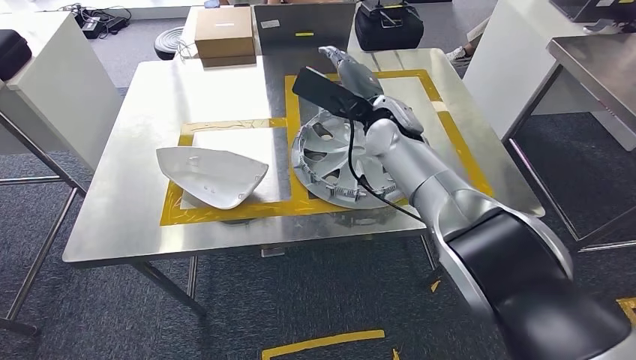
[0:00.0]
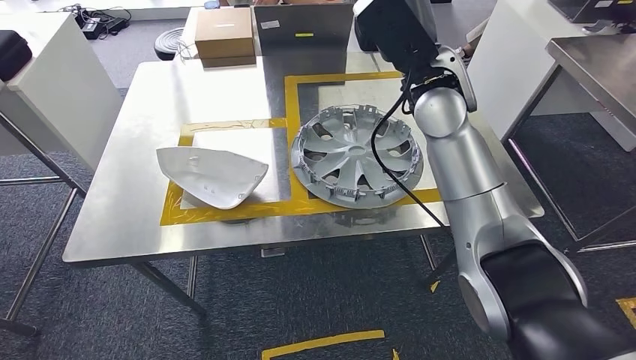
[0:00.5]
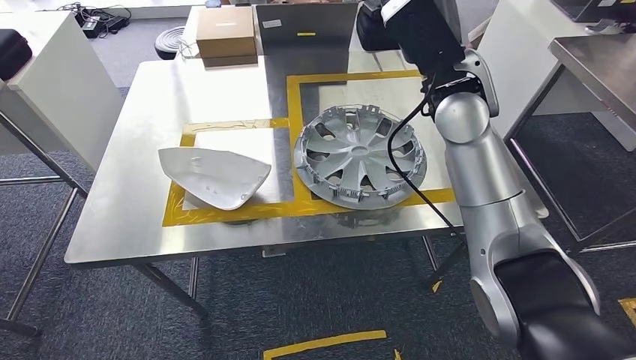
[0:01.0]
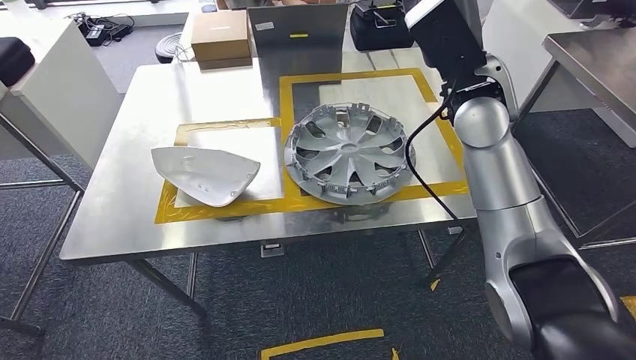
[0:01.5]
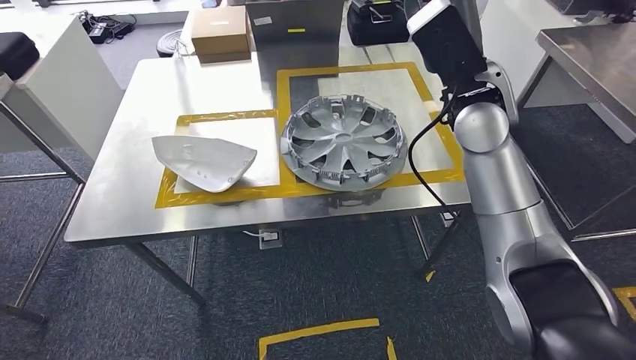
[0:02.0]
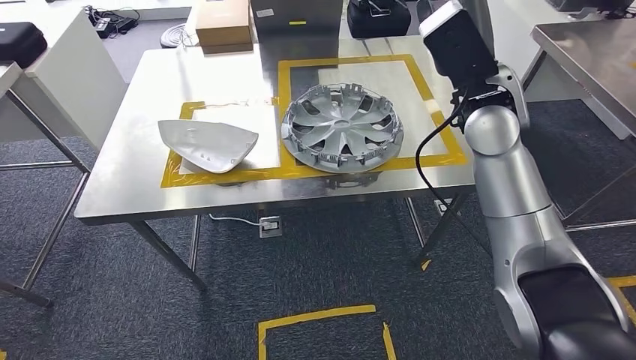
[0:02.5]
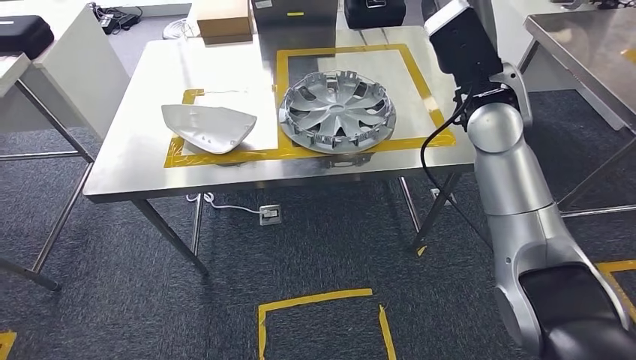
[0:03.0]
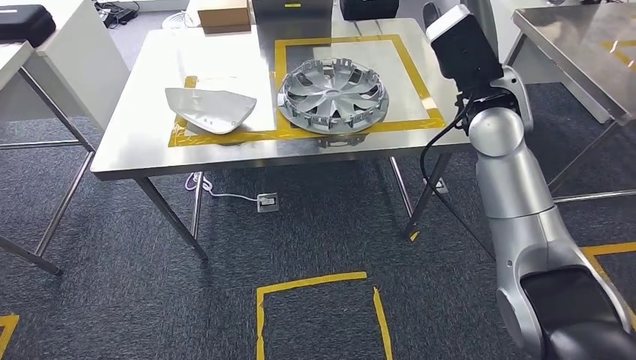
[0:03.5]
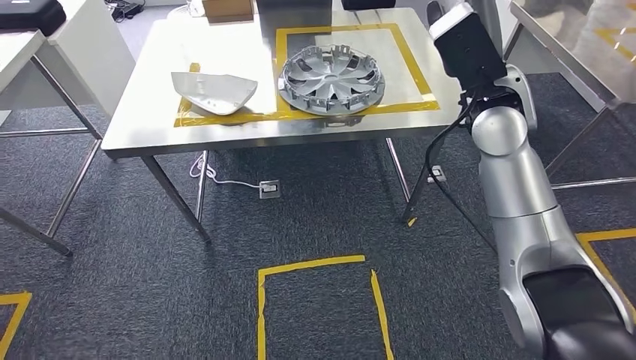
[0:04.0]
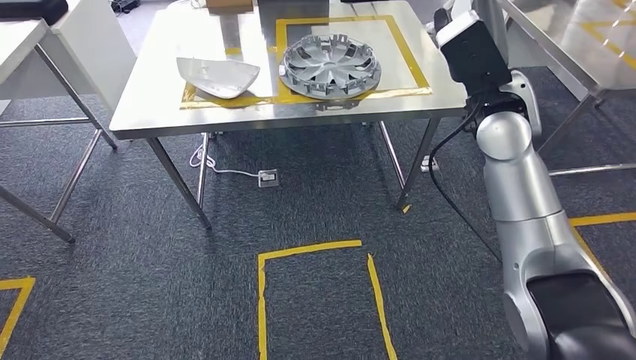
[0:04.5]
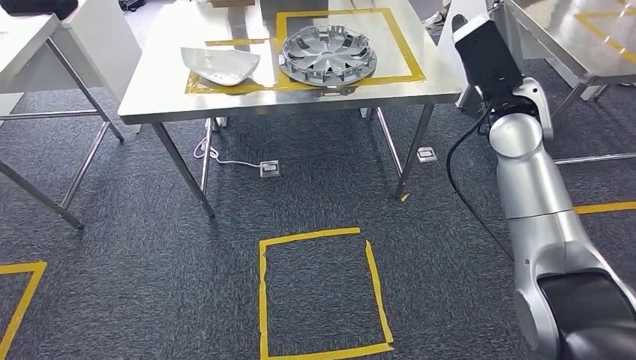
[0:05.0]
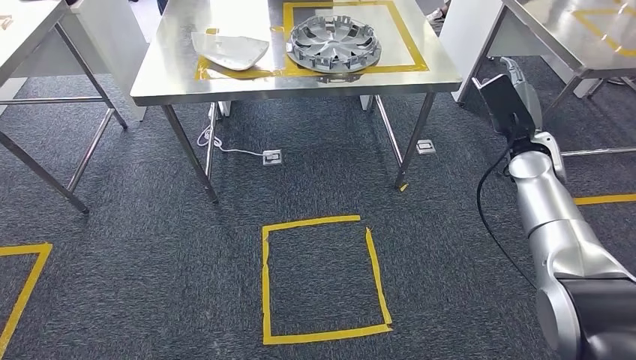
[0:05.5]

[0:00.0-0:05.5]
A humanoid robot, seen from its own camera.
Step, 0:00.0 to 0:03.0: Insert the small parts into the corresponding holes on the workbench.
Step, 0:05.0 to 0:05.5: Move to the initial position of the workbench.

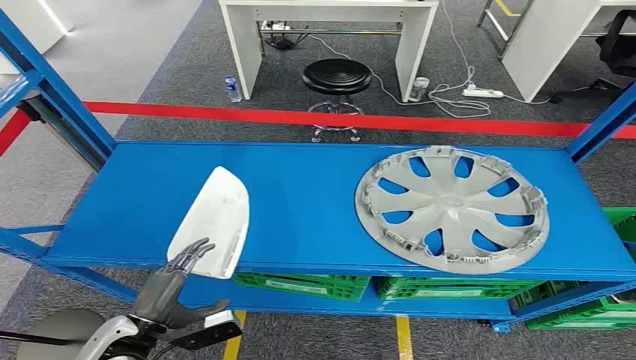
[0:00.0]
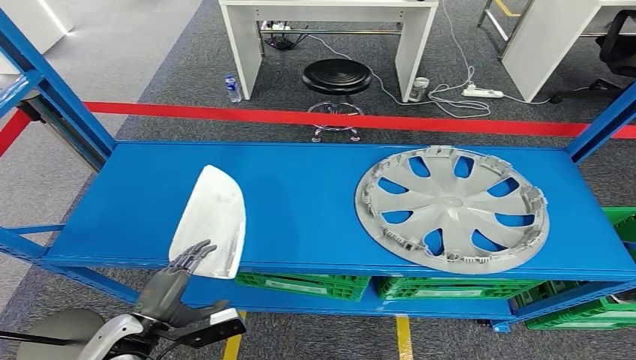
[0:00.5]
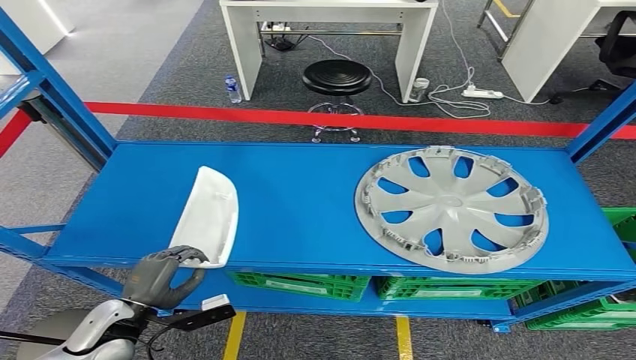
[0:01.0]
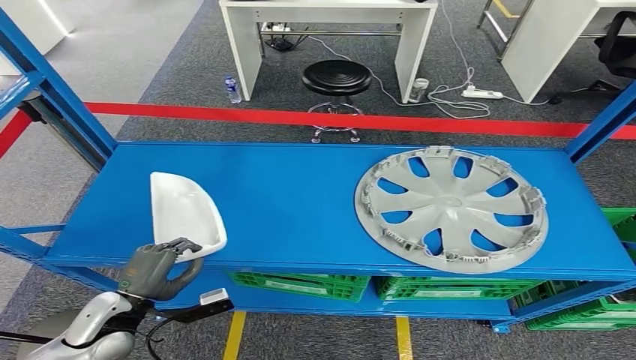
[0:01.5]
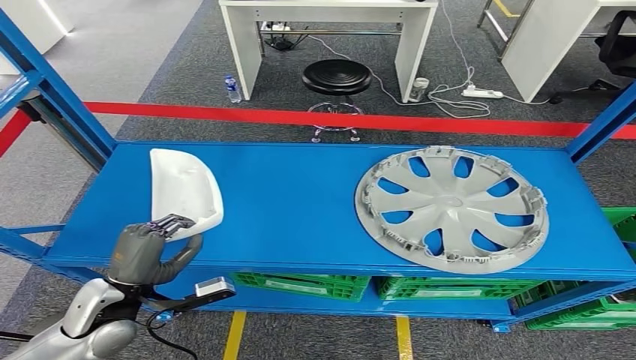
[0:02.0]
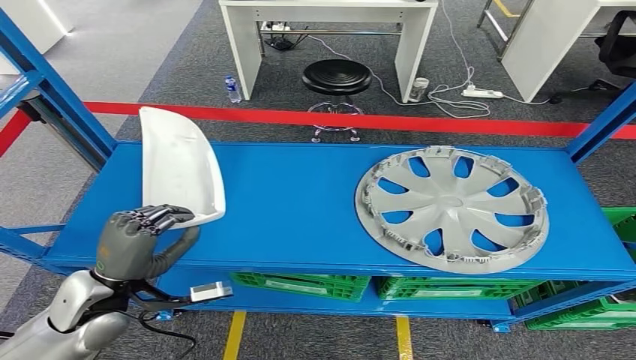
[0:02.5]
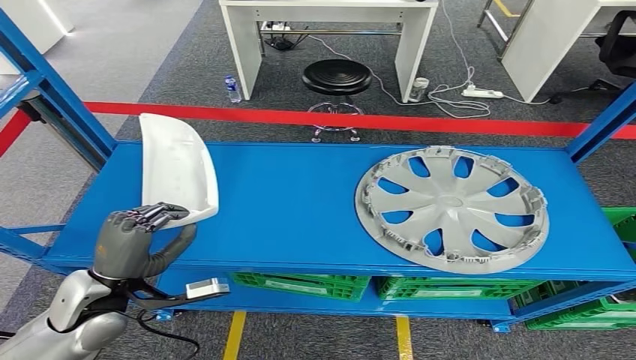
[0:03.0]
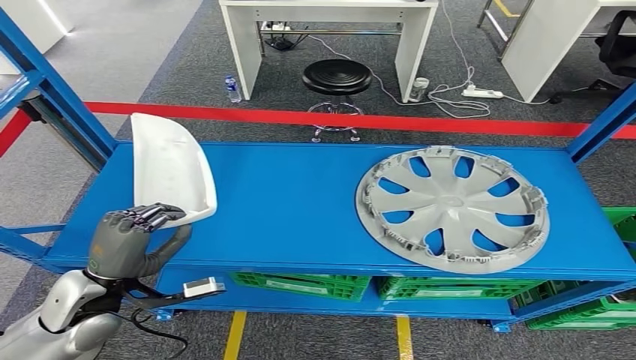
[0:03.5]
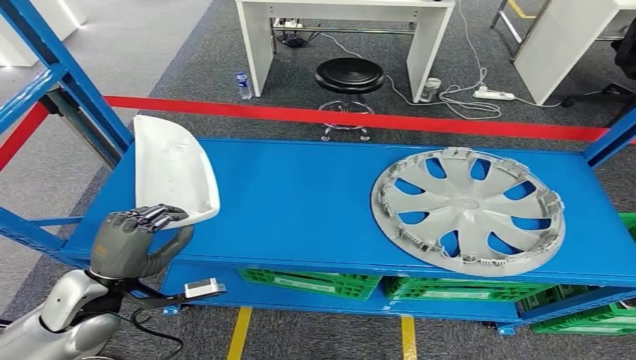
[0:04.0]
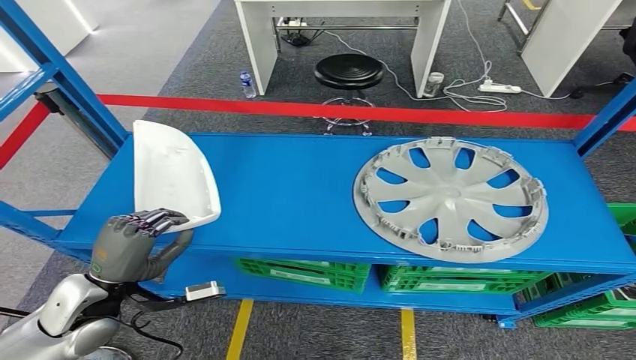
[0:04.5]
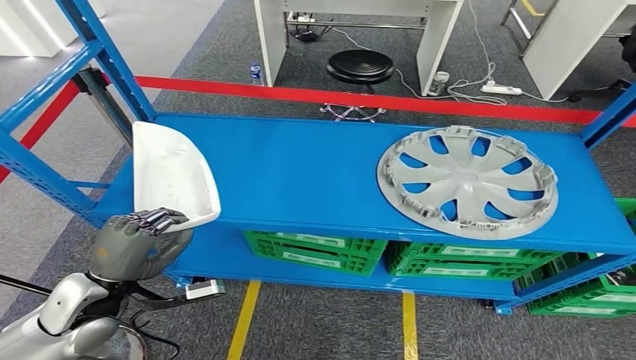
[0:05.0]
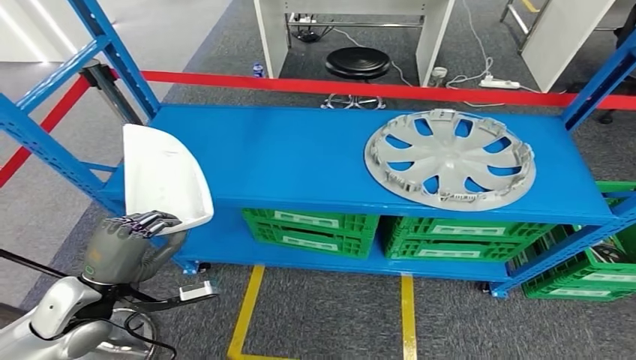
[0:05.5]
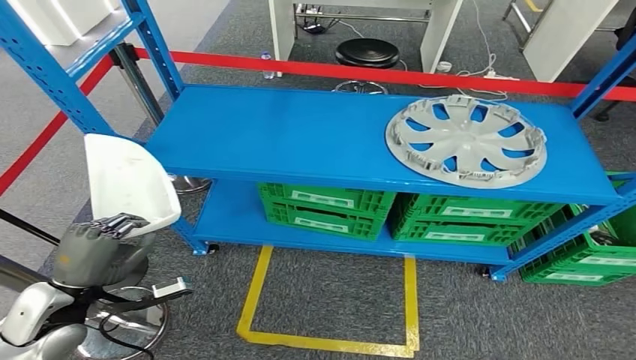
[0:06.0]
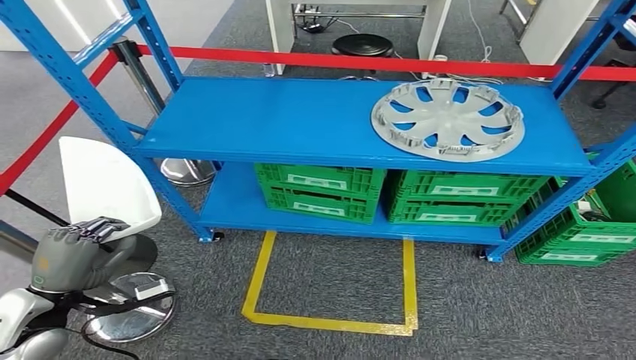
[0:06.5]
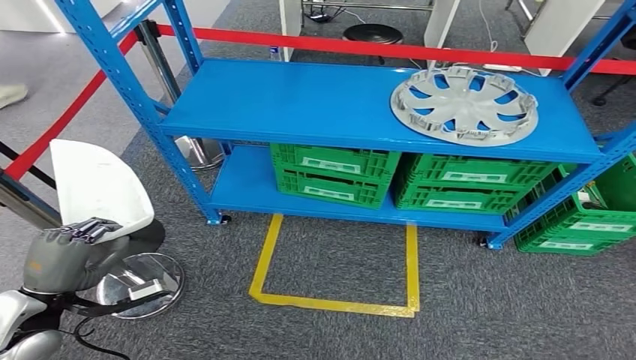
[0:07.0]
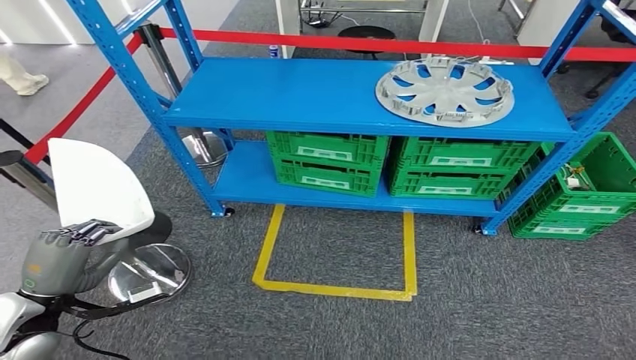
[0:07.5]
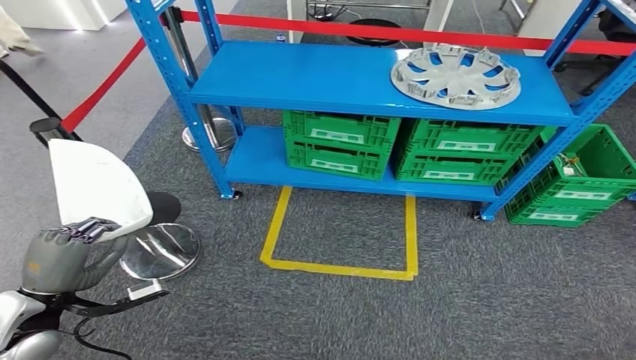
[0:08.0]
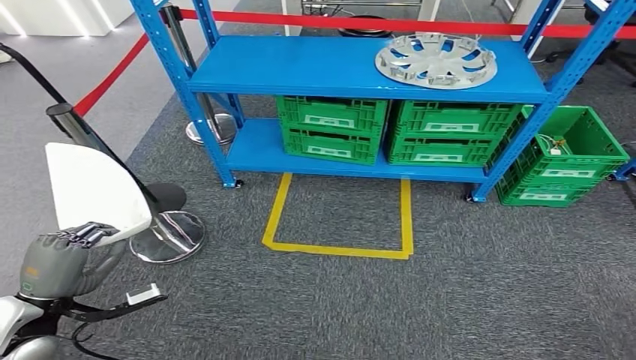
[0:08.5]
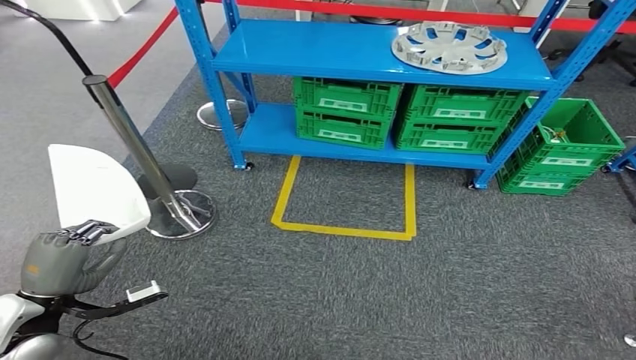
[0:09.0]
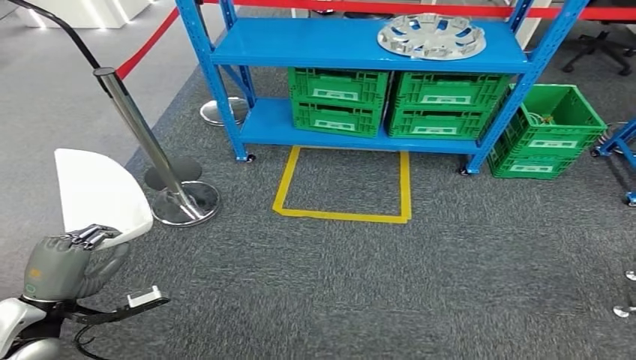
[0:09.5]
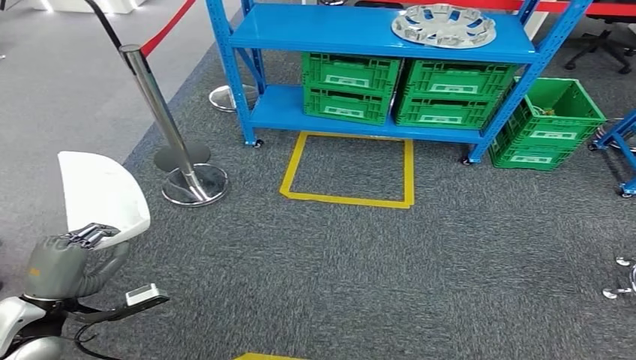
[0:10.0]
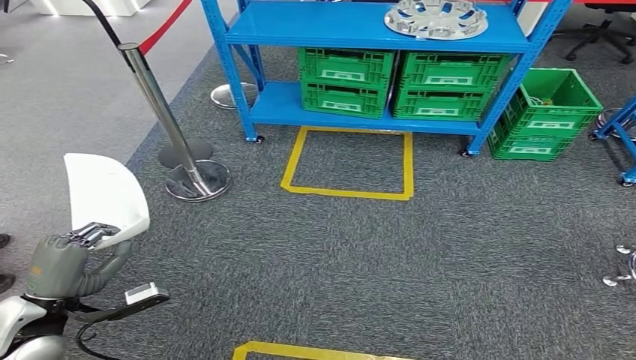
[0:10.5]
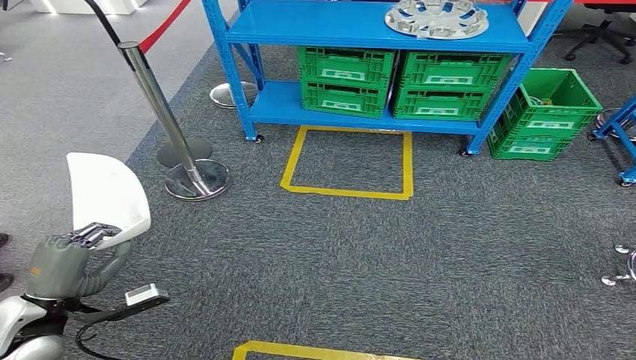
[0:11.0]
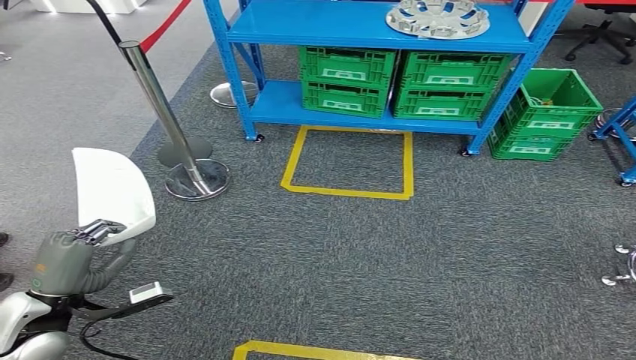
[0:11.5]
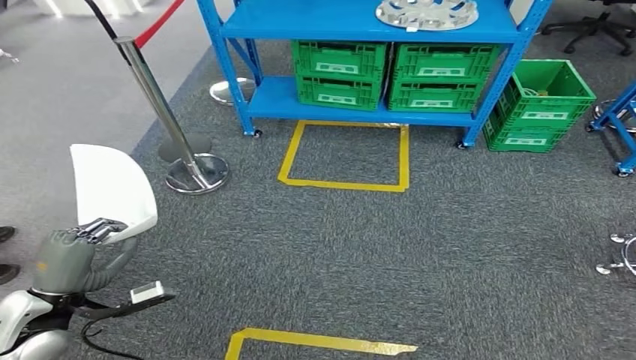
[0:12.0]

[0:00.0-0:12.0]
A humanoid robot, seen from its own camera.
Step, 0:00.0 to 0:06.0: Take small components from the rack.

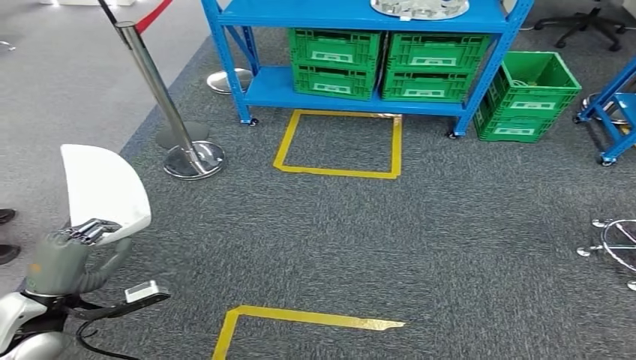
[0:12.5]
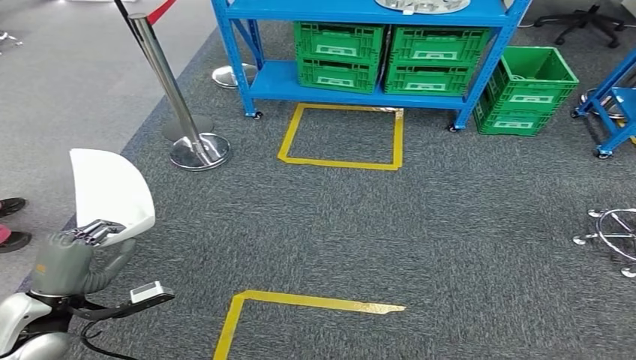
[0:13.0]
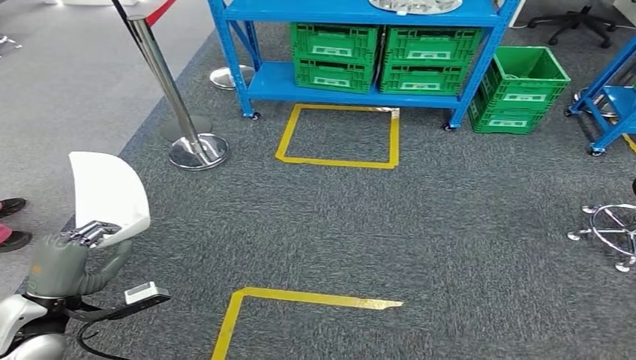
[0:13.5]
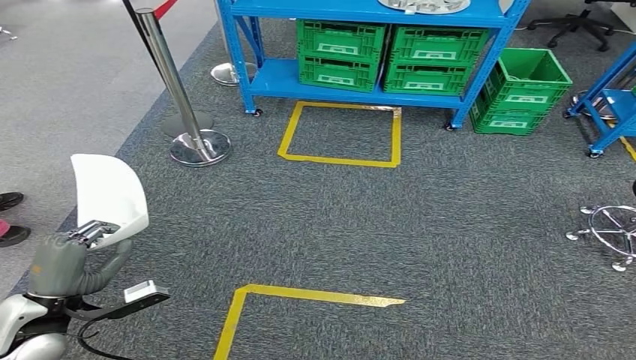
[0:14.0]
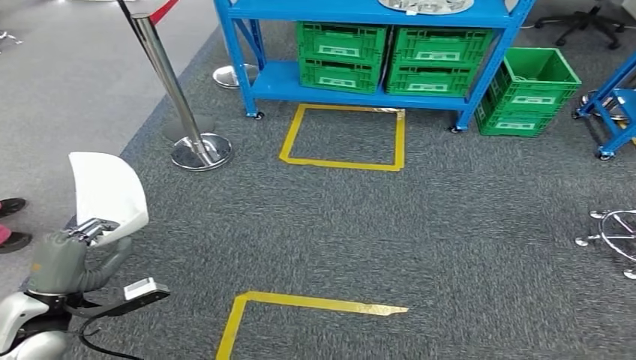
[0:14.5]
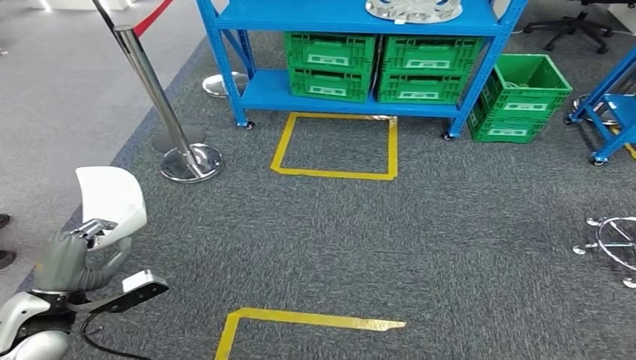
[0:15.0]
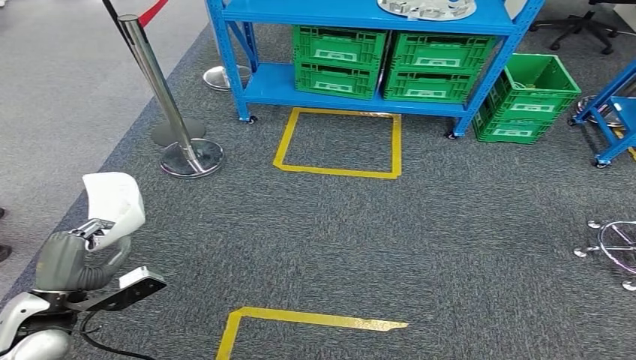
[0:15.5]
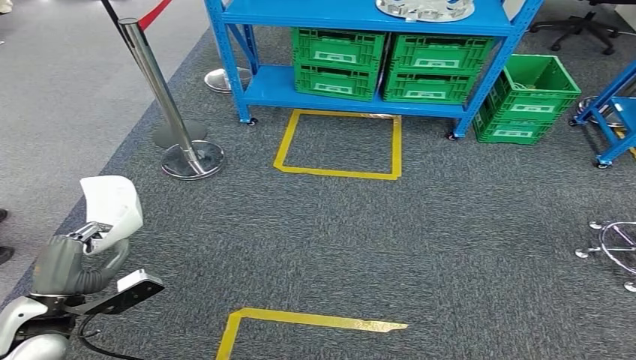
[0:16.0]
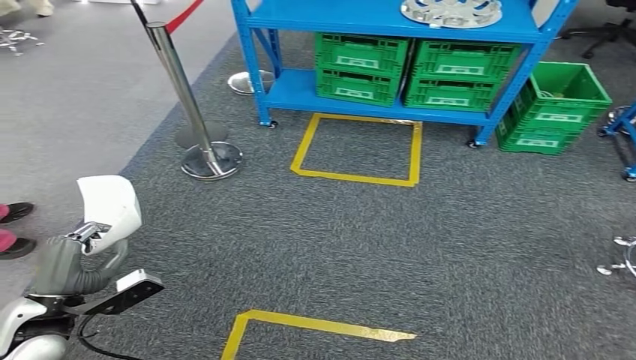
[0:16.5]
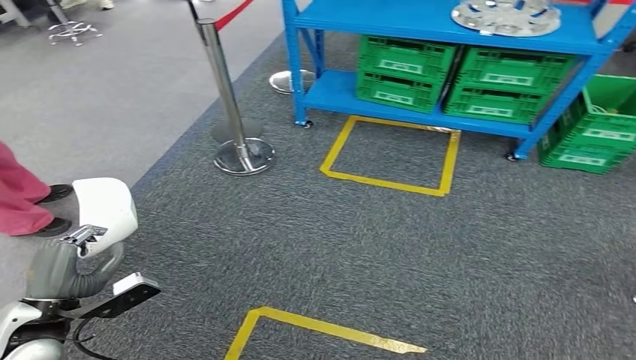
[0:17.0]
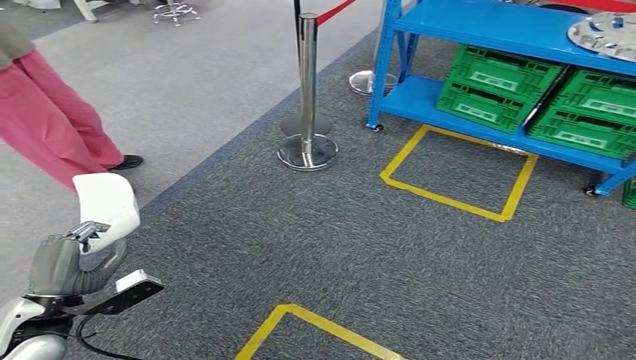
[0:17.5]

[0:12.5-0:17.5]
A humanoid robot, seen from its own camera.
0:12.5 to 0:15.0: The hands stay close to where they were, moving slightly.
